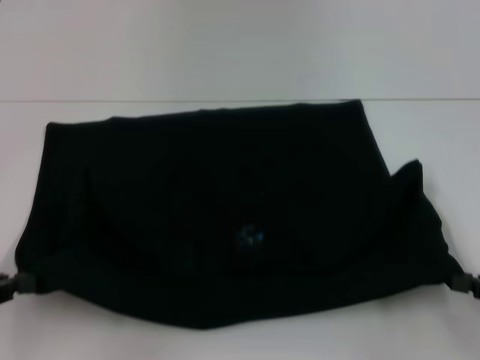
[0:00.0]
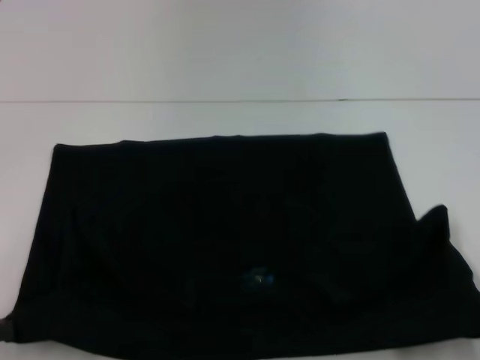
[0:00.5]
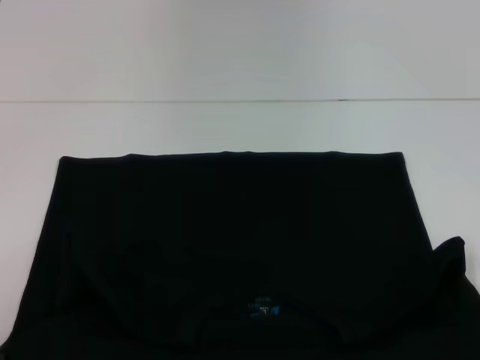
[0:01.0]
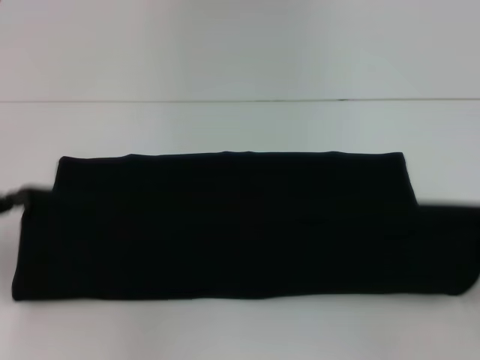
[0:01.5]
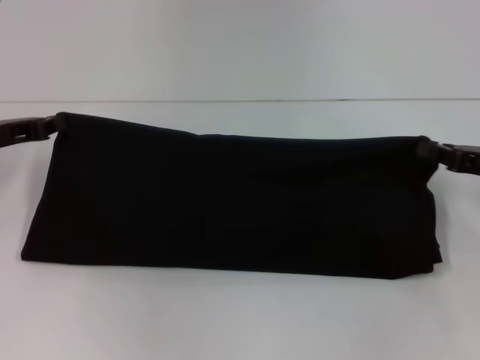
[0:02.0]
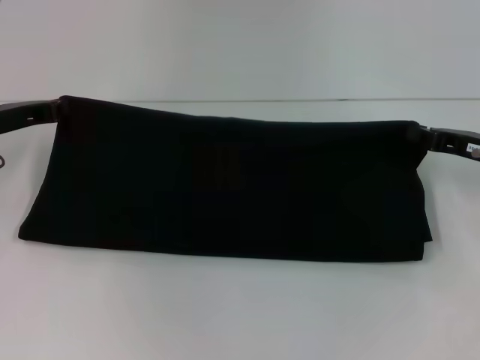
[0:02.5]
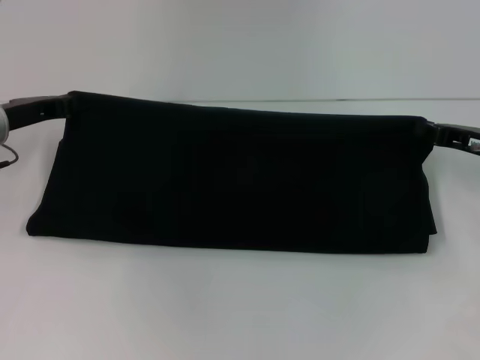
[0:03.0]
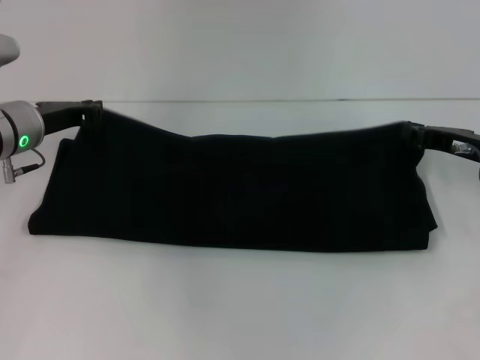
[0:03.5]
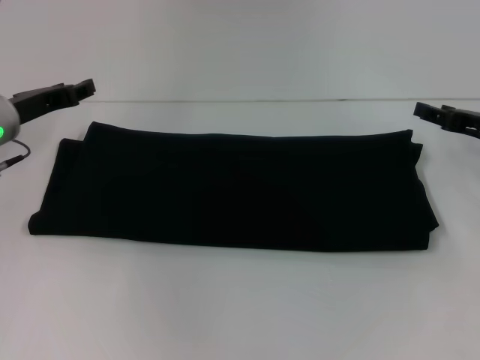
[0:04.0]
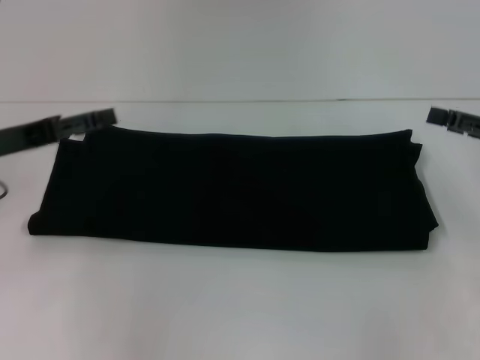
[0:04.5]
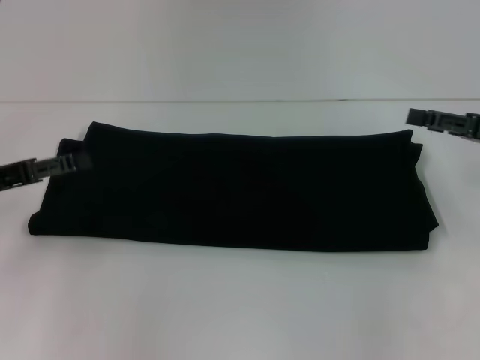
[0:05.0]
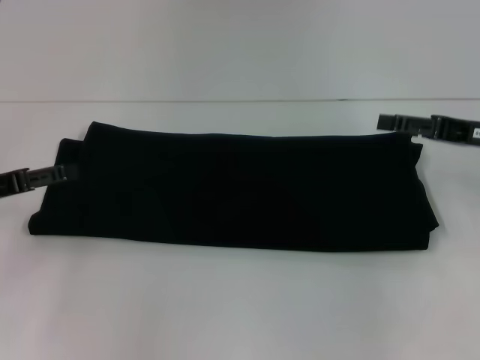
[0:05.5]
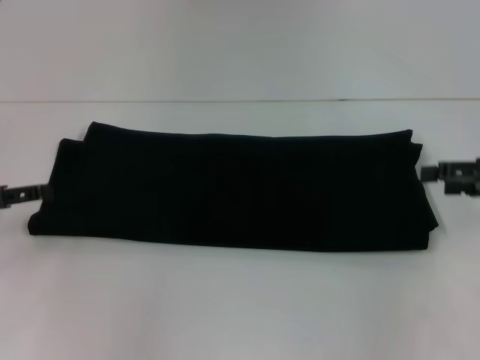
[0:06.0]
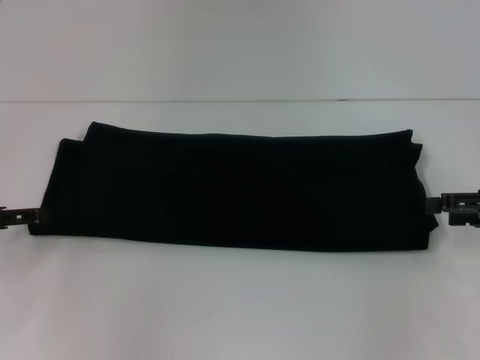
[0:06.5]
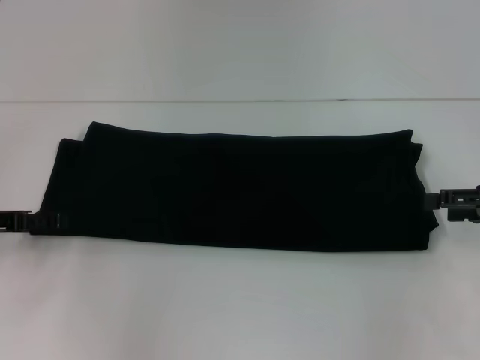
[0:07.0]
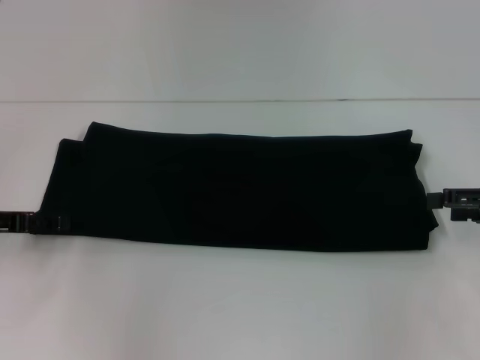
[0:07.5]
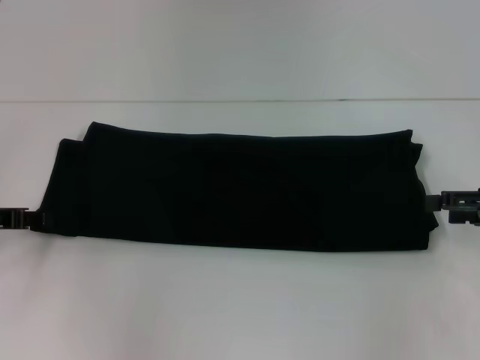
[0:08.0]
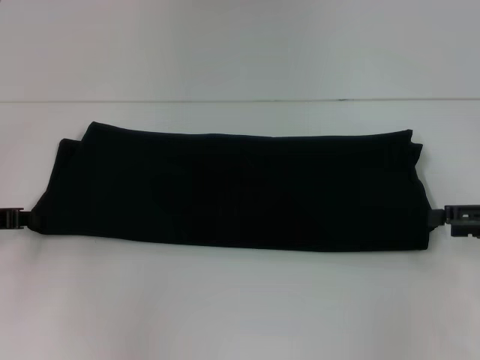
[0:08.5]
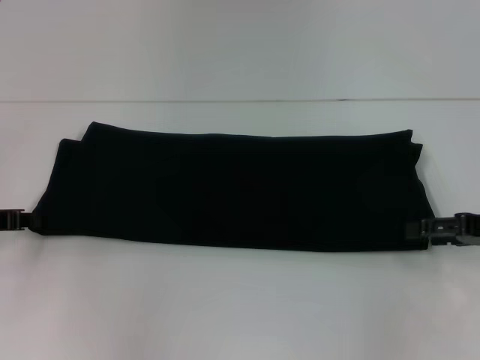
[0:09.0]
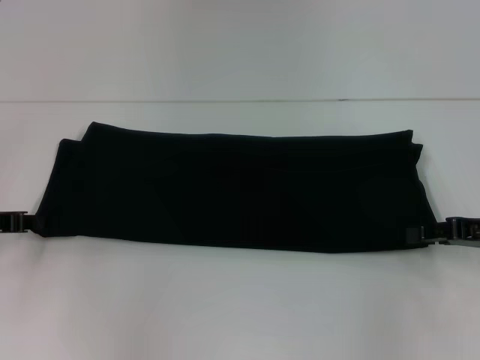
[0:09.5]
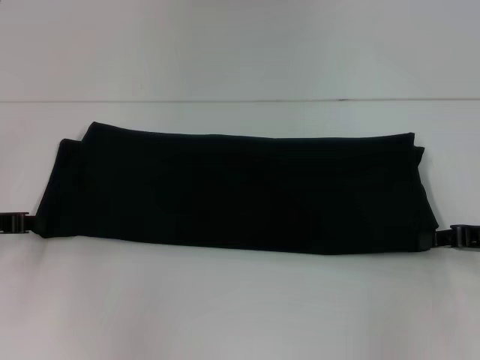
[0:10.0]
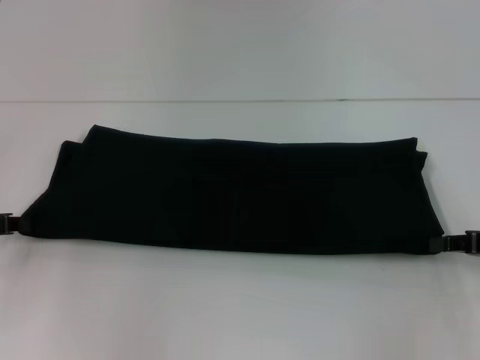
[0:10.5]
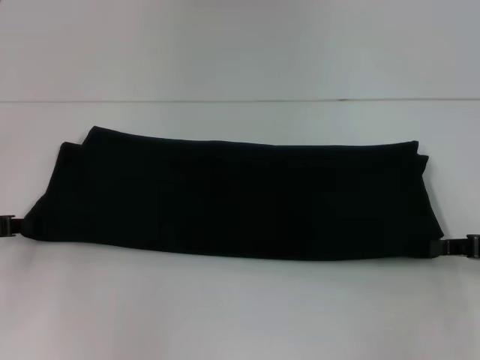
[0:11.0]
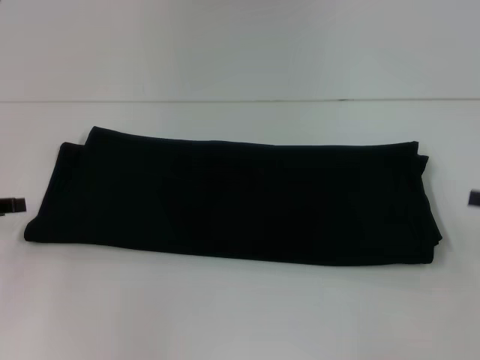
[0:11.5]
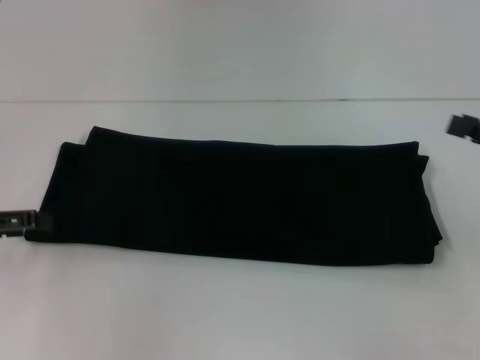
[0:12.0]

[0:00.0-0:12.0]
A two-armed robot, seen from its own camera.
Step, 0:01.0 to 0:04.0: Fold the clothes with your right hand.
0:00.0 to 0:02.0: Both grippers travel together forward, roughly 15 cm.
0:02.0 to 0:04.0: The left gripper shifts by about 5 cm, and opens up; the right gripper opens its fingers.
0:04.0 to 0:06.0: The right gripper shifts by about 5 cm, and opens. Meanwhile the left gripper shifts roughly 15 cm backward and to the left, and opens up.
0:06.0 to 0:08.0: The left gripper closes.
0:08.0 to 0:10.0: The left gripper closes. Meanwhile the right gripper closes up.
0:10.0 to 0:12.0: The left gripper shifts by roughly 5 cm, and opens up; the right gripper shifts about 5 cm upward, and opens.

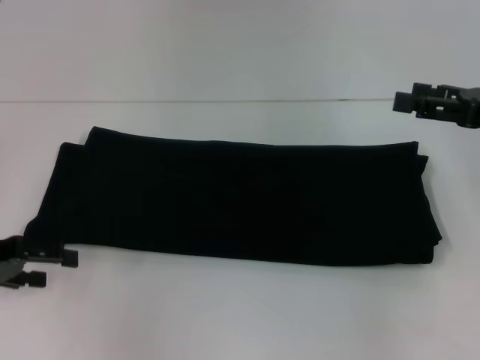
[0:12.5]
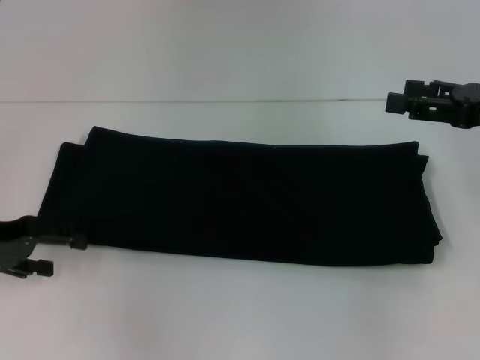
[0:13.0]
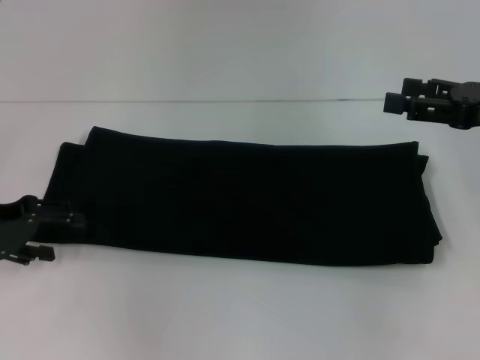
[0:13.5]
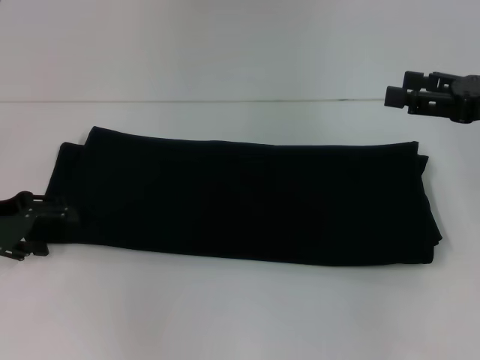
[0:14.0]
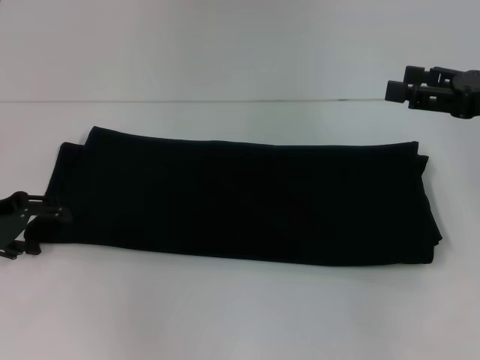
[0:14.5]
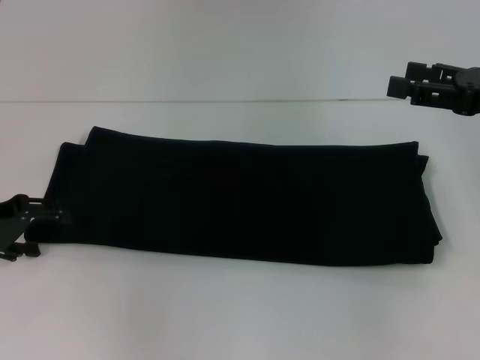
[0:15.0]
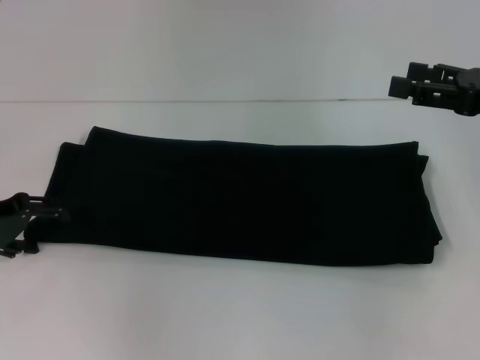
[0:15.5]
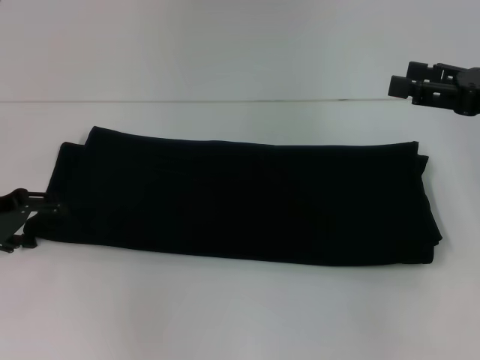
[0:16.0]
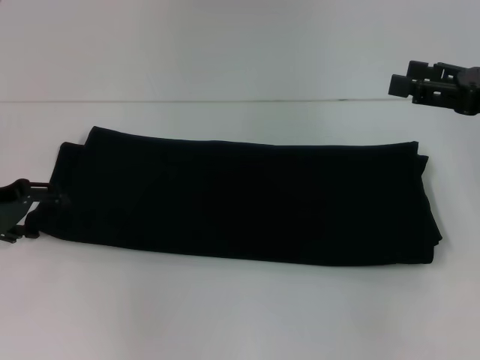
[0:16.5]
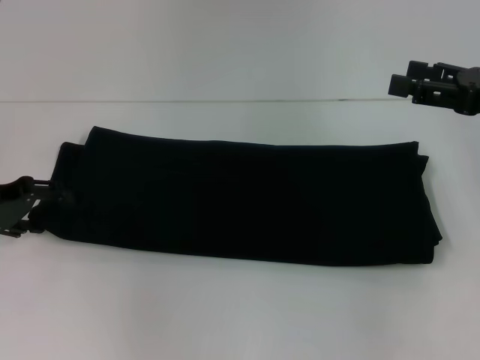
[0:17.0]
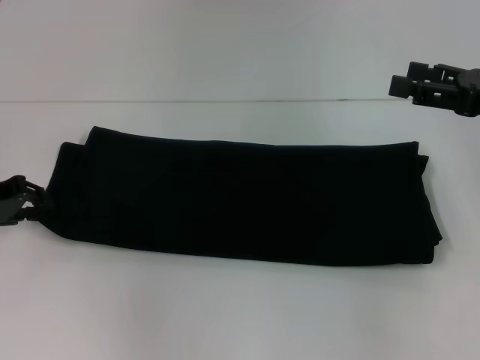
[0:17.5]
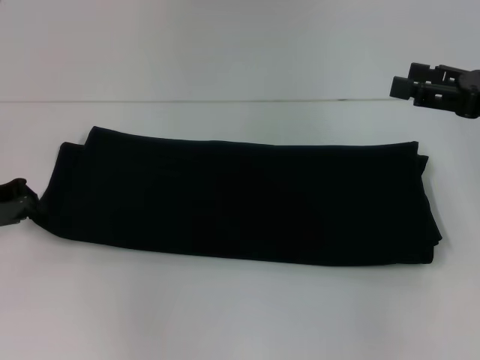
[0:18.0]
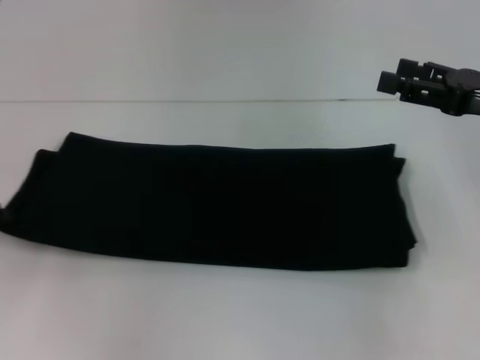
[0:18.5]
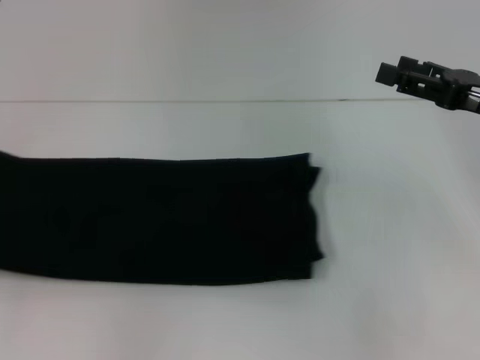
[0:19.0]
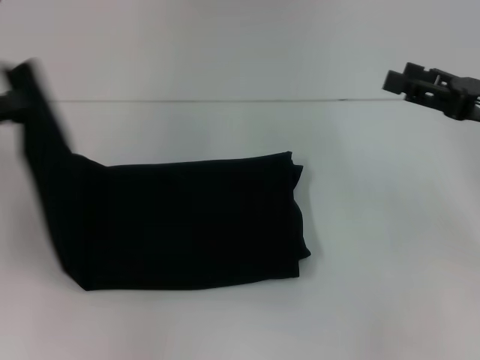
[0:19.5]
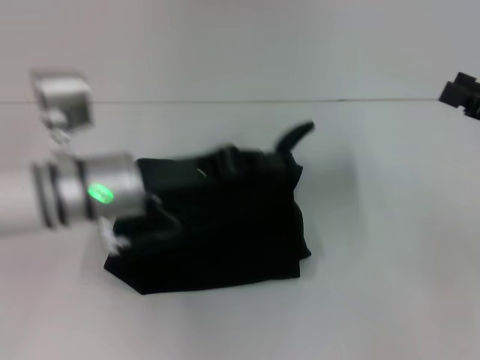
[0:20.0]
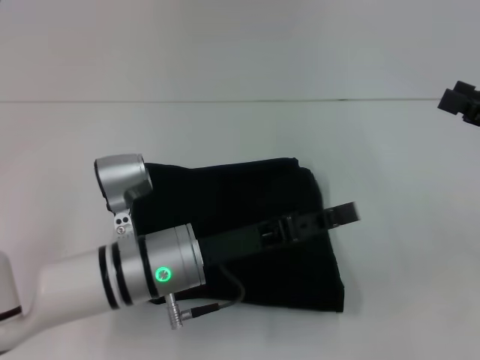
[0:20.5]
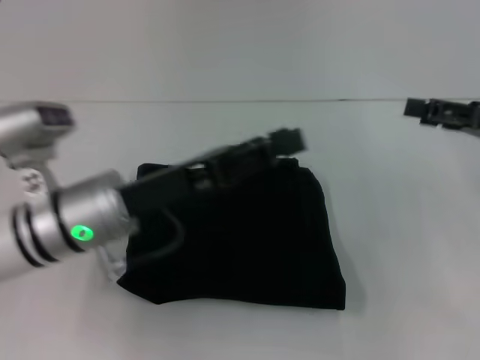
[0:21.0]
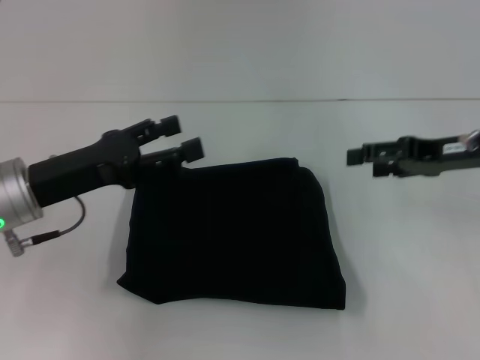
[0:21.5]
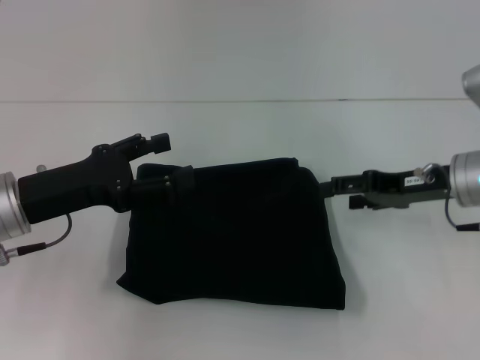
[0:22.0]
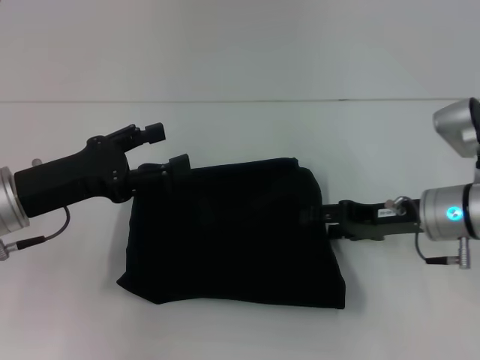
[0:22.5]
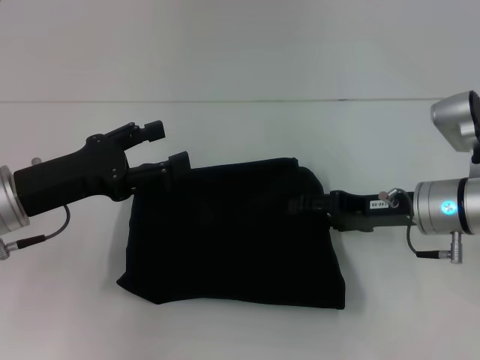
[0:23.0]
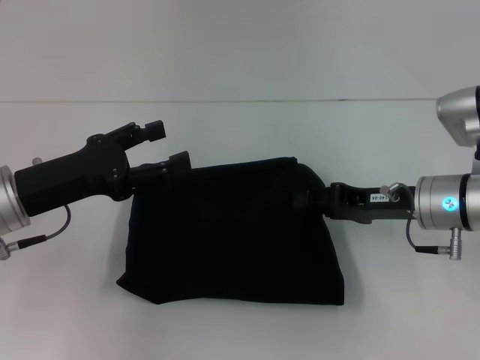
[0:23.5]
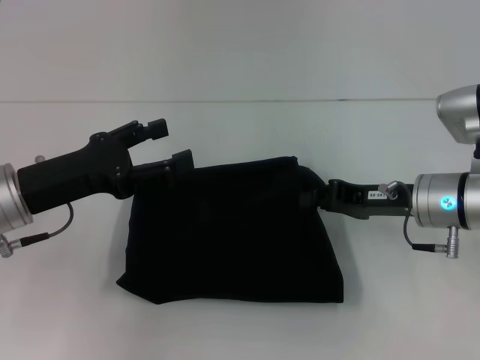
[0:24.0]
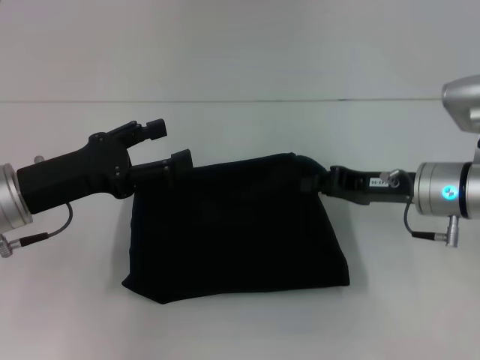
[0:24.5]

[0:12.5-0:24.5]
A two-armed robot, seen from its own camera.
Step, 0:12.5 to 0:20.5: Fold the clothes with your left hand.
0:12.5 to 0:14.5: The grippers move only a little.
0:14.5 to 0:16.5: The grippers move only a little.
0:16.5 to 0:18.5: The left gripper closes its fingers.
0:18.5 to 0:20.5: The right gripper changes place by approximately 5 cm; the left gripper travels to the right by approximately 30 cm.
0:20.5 to 0:22.5: The left gripper shifts about 15 cm to the left, and opens up. Meanwhile the right gripper heads to the left and downward, covering roughly 15 cm.
0:22.5 to 0:24.5: The right gripper closes its fingers.

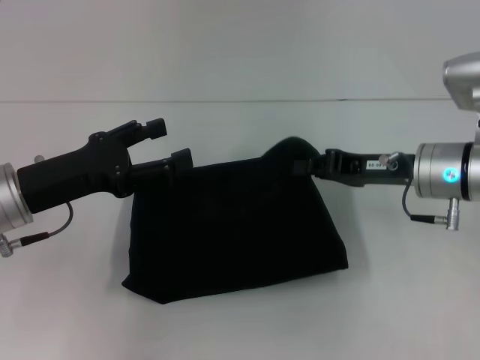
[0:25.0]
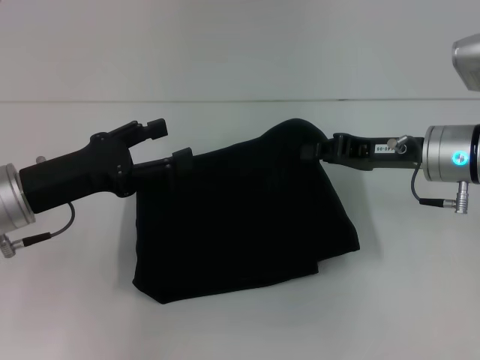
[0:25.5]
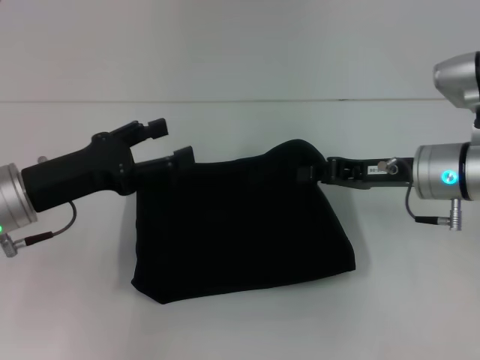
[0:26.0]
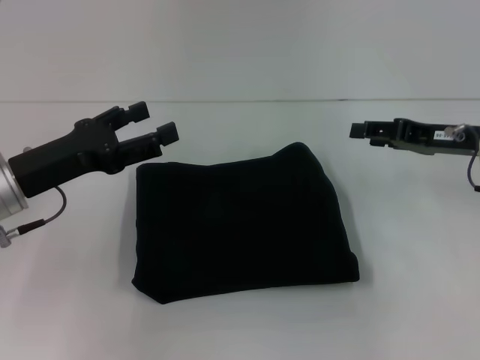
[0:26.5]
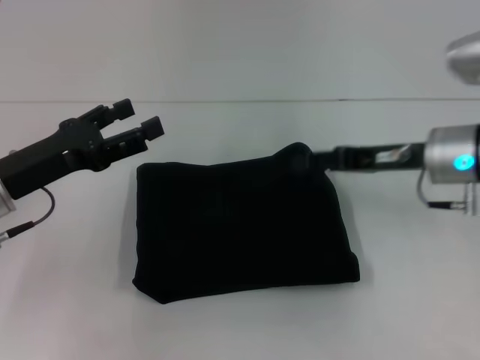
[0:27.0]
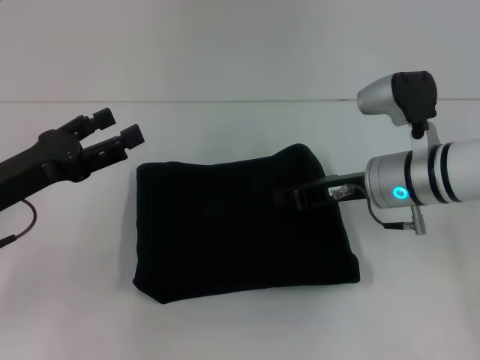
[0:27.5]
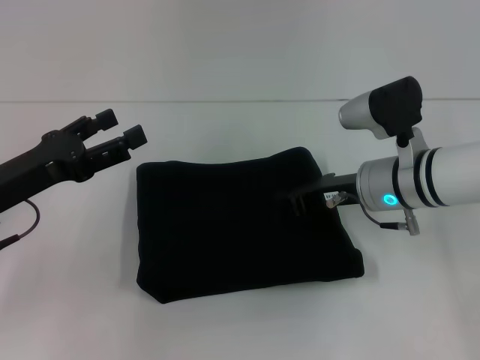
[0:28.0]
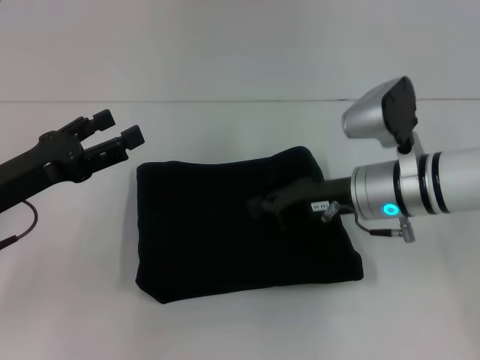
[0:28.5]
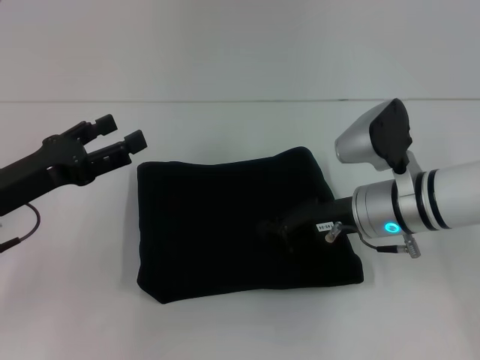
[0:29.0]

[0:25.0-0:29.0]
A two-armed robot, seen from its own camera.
0:25.0 to 0:27.0: The right gripper opens its fingers.
0:27.0 to 0:29.0: The right gripper travels to the left by roughly 5 cm, and closes.
